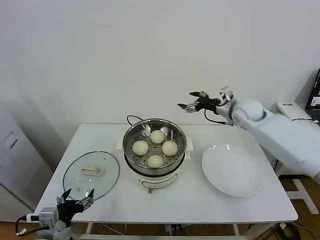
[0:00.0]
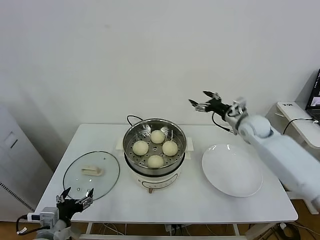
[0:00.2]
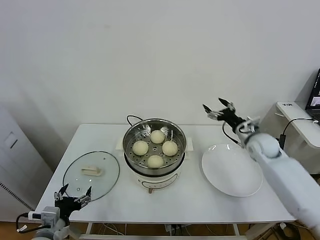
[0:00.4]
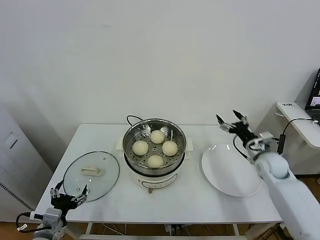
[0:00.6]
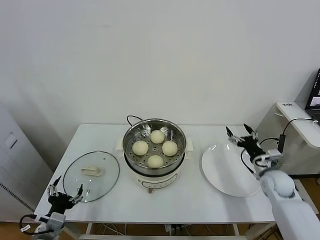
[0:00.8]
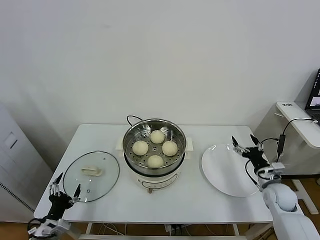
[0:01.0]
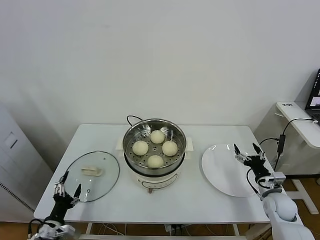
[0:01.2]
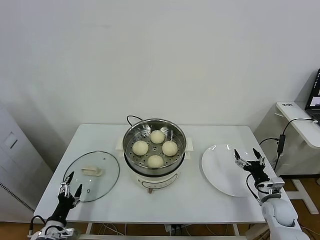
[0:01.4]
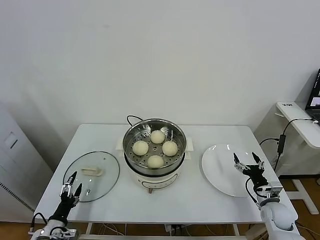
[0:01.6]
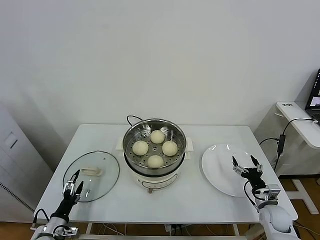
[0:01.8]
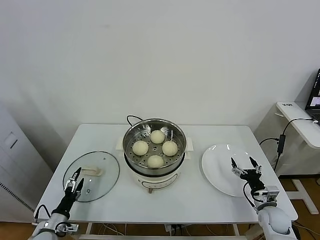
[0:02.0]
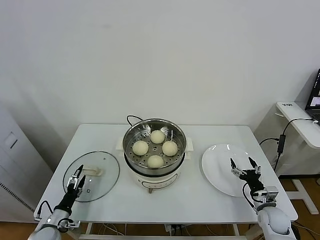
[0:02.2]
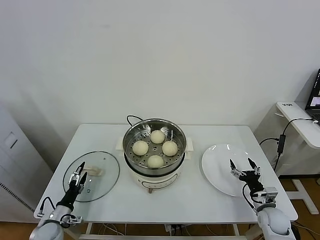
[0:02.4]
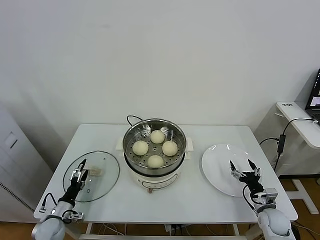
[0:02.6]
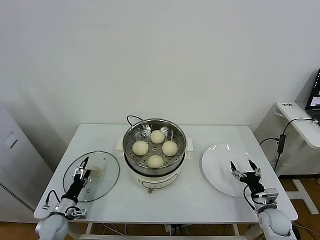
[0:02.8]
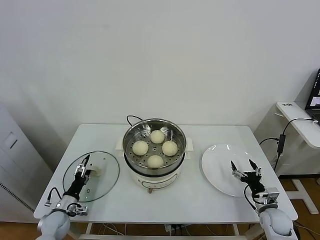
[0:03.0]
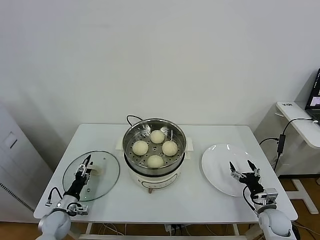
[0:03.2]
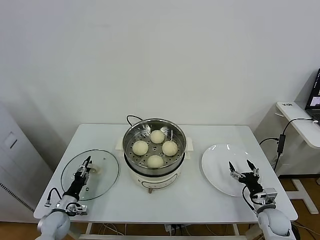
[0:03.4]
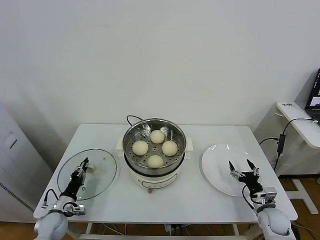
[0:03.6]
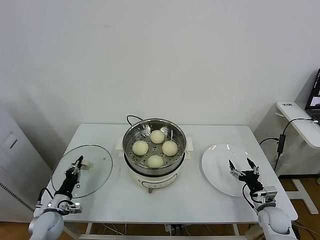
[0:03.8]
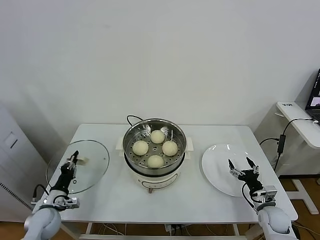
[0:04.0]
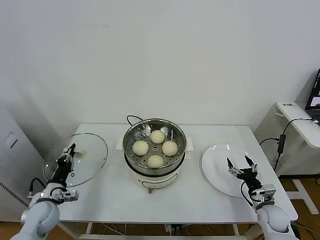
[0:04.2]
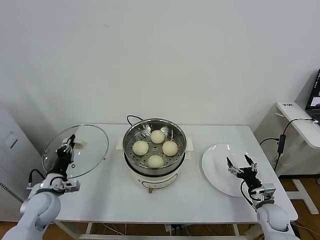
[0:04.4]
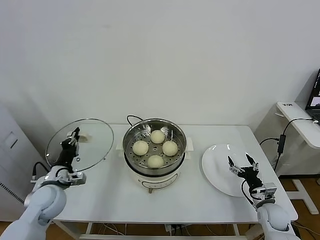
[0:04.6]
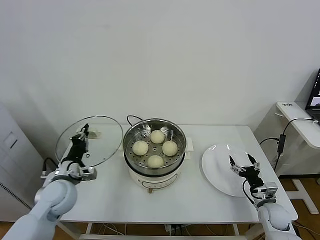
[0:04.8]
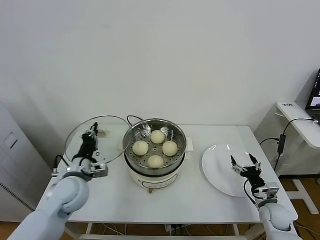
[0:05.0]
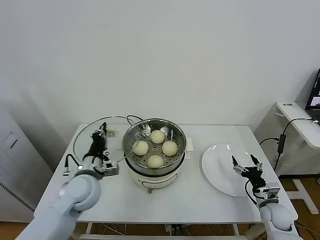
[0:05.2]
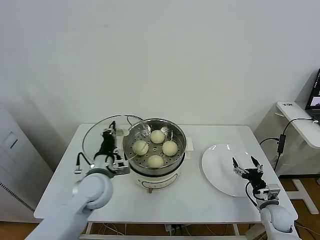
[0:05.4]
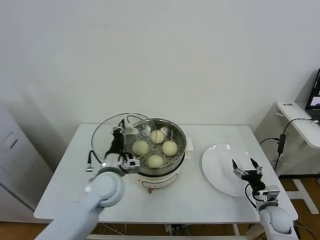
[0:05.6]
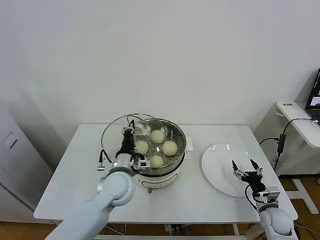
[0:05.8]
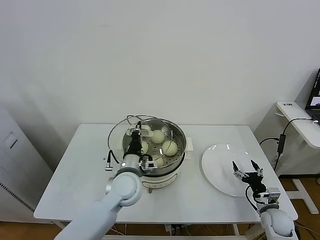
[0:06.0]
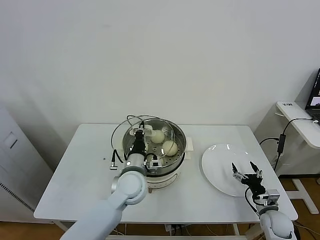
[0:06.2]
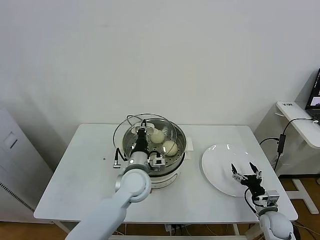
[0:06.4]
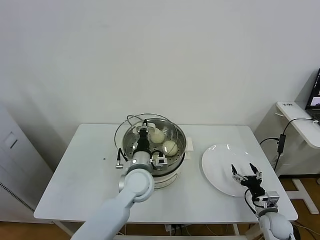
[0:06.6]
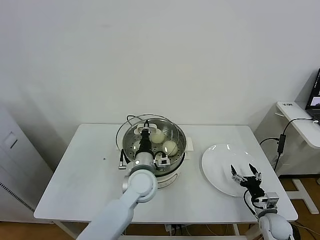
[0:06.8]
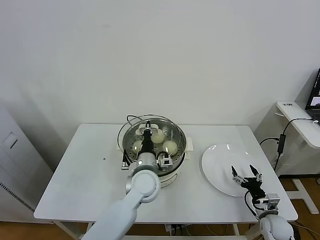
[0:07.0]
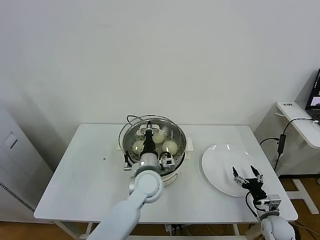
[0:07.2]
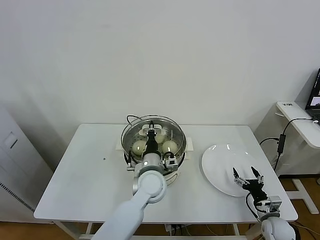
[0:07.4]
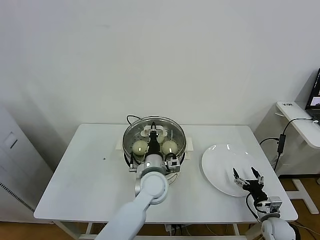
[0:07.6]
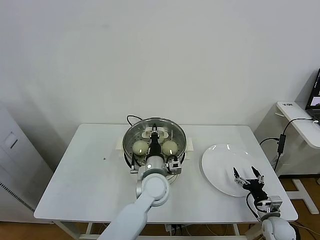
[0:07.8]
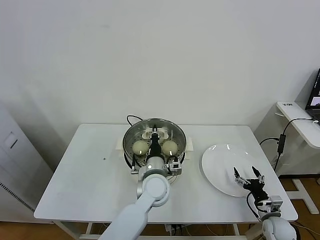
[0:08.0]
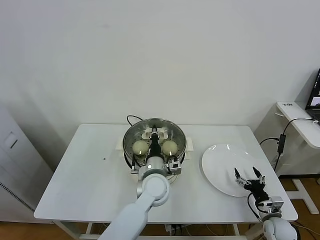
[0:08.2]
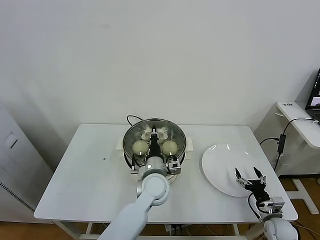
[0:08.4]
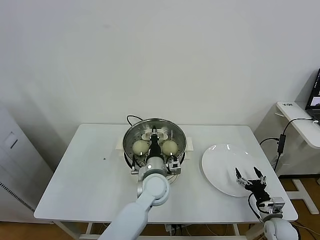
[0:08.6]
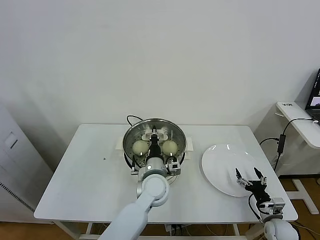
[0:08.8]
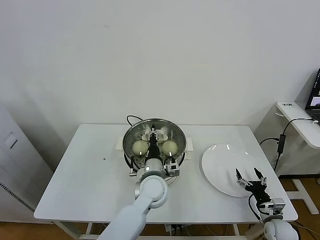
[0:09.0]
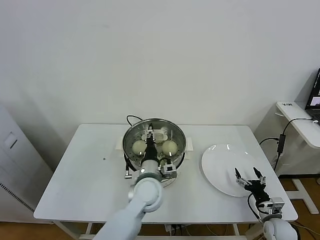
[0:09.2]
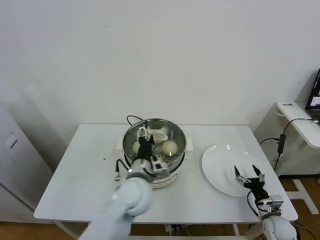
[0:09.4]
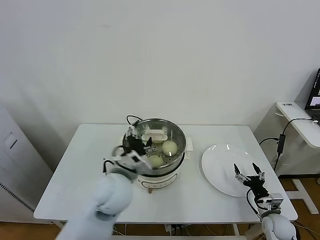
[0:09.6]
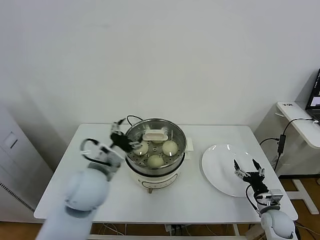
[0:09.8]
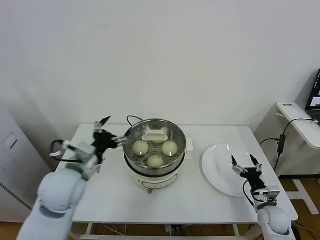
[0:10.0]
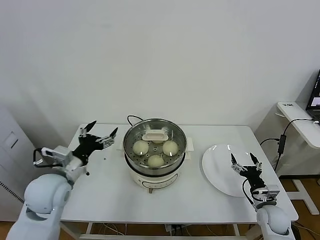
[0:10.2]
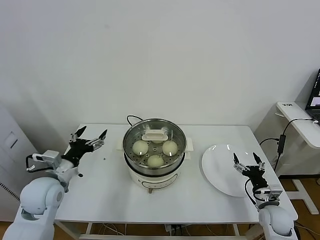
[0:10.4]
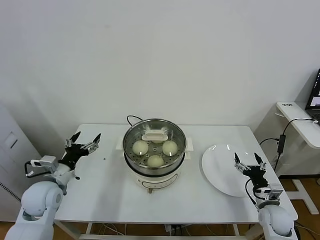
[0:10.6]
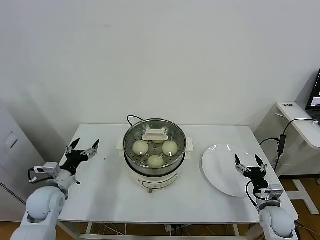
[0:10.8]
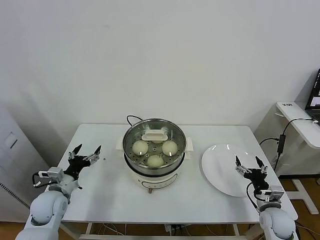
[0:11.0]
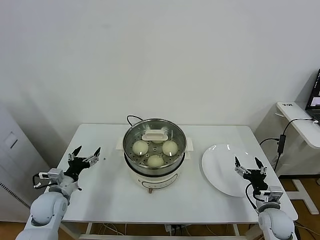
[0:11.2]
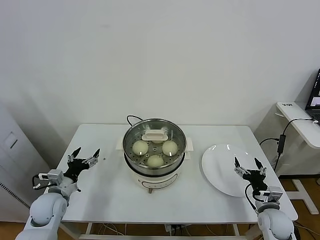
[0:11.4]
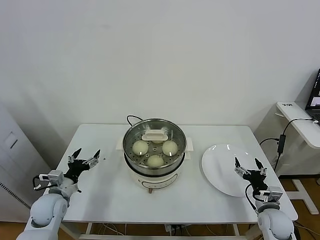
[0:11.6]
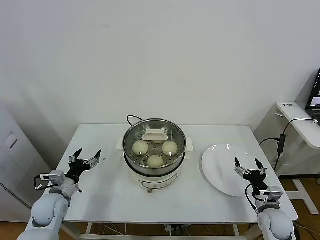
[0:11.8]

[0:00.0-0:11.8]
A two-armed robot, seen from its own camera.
Task of the whole recording: take steamed baozi put them in steamer.
Step, 0:00.0 to 0:03.8: Grasp the pot lid with left gripper.
Step, 0:04.0 to 0:09.4: Place the pot lid on the steamer with left gripper.
0:00.0 to 0:01.4: The left gripper moves downward and to the left, roughly 15 cm; the right gripper heads downward, backward and to the right, covering roughly 35 cm.
0:01.4 to 0:03.0: The left gripper travels forward and downward by about 10 cm.
0:03.0 to 0:04.4: The left gripper moves upward, about 15 cm, and closes up.
0:04.4 to 0:06.0: The left gripper moves to the right, approximately 25 cm.
0:06.0 to 0:07.4: The left gripper moves to the right, about 10 cm.
0:07.4 to 0:08.8: The grippers move only a little.
0:08.8 to 0:10.4: The right gripper travels upward by some 5 cm; the left gripper is displaced to the left by about 30 cm, and opens.
0:10.4 to 0:11.8: The left gripper shifts roughly 15 cm downward.

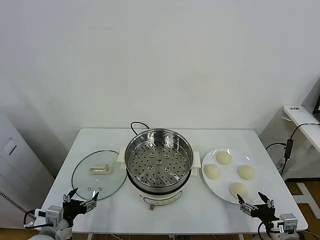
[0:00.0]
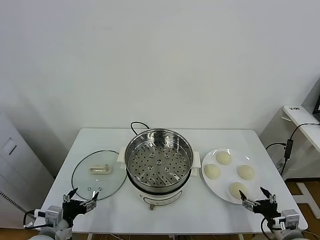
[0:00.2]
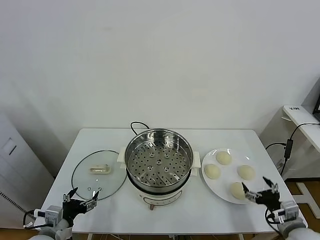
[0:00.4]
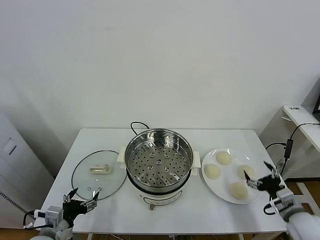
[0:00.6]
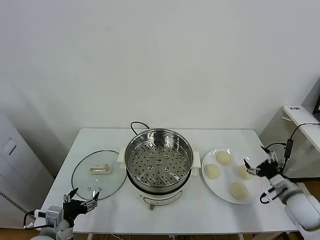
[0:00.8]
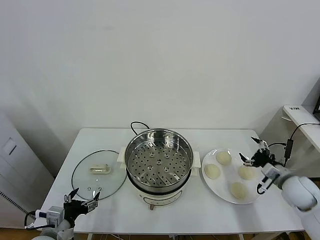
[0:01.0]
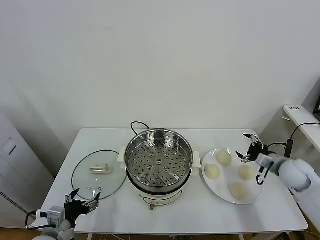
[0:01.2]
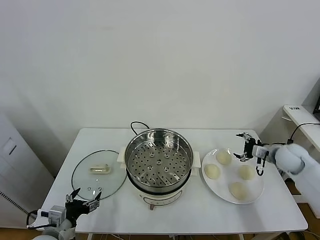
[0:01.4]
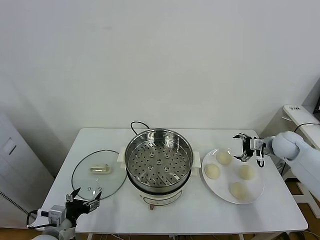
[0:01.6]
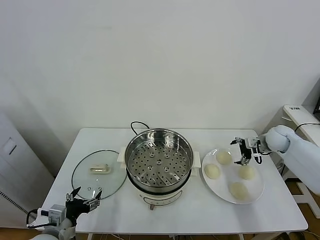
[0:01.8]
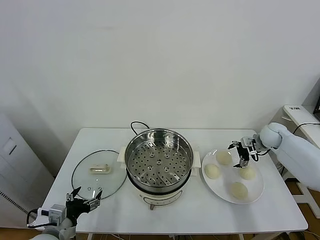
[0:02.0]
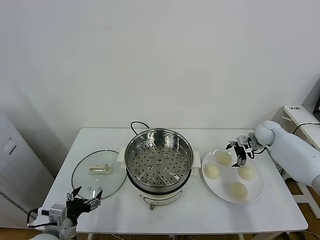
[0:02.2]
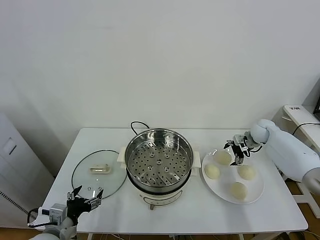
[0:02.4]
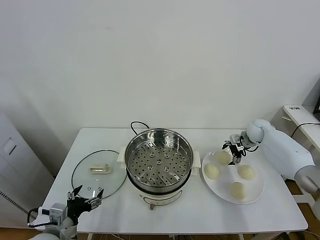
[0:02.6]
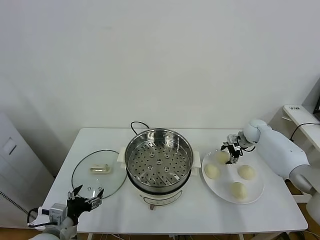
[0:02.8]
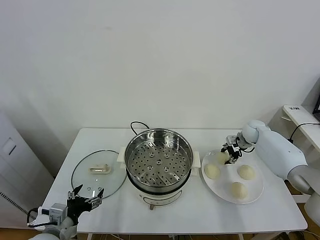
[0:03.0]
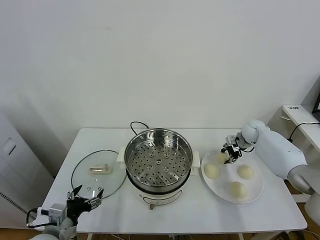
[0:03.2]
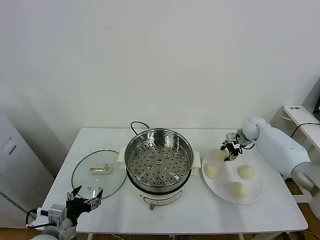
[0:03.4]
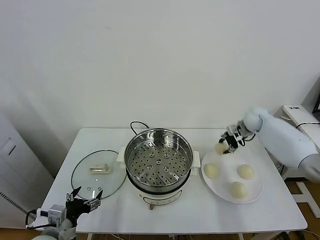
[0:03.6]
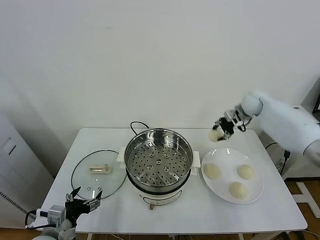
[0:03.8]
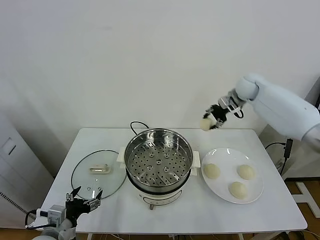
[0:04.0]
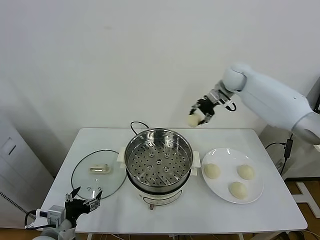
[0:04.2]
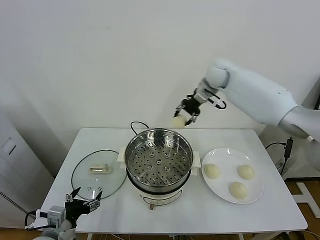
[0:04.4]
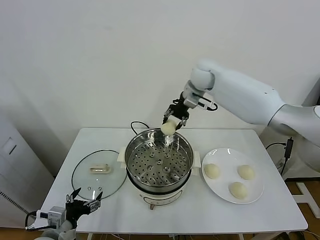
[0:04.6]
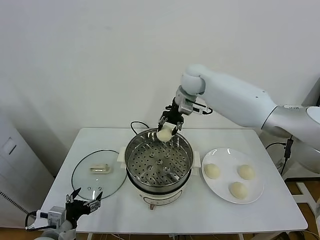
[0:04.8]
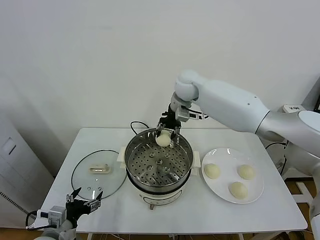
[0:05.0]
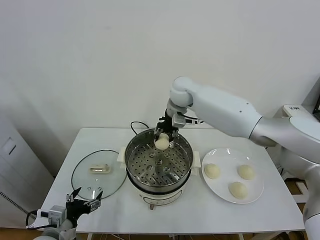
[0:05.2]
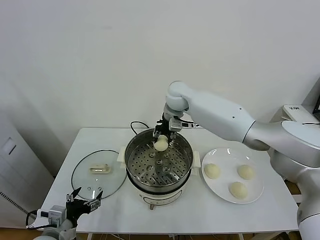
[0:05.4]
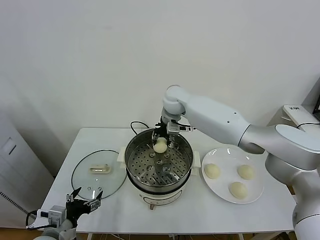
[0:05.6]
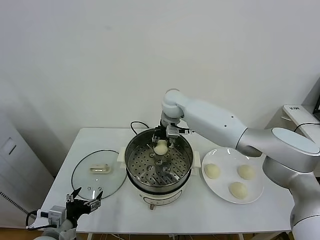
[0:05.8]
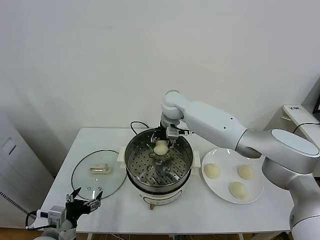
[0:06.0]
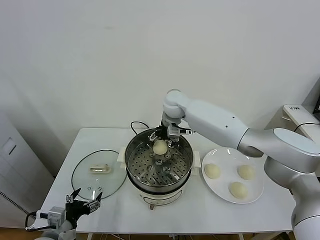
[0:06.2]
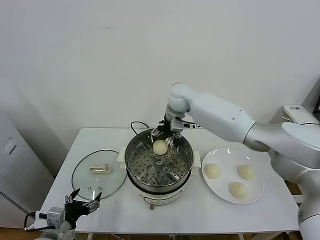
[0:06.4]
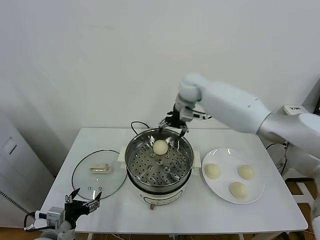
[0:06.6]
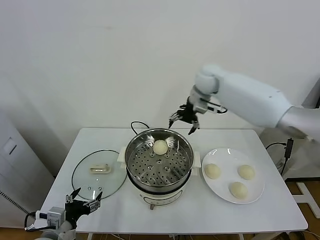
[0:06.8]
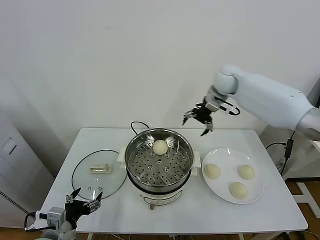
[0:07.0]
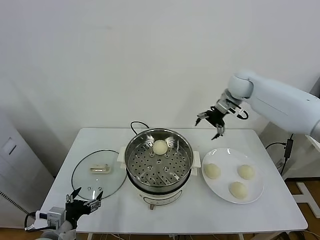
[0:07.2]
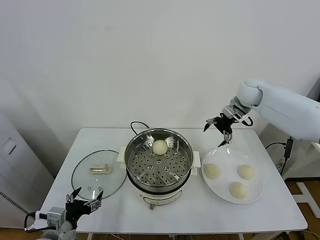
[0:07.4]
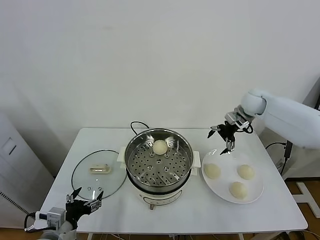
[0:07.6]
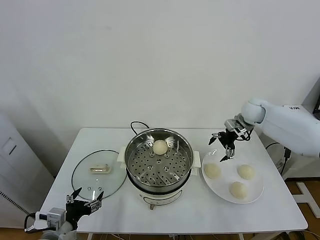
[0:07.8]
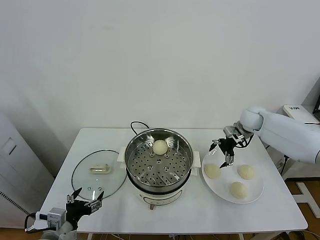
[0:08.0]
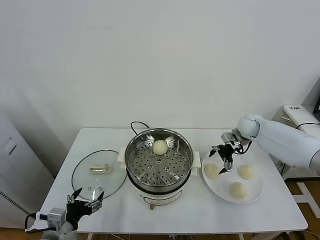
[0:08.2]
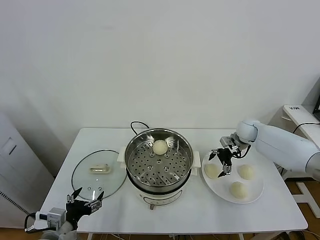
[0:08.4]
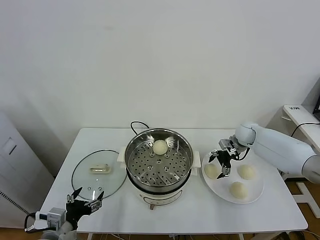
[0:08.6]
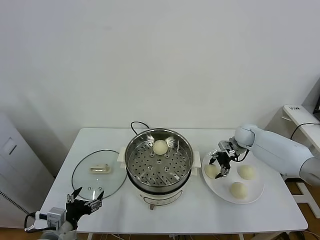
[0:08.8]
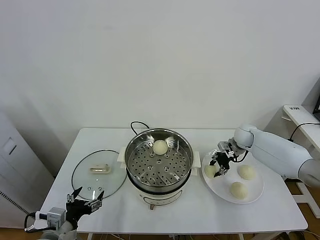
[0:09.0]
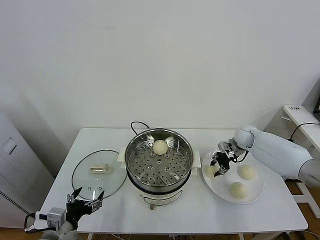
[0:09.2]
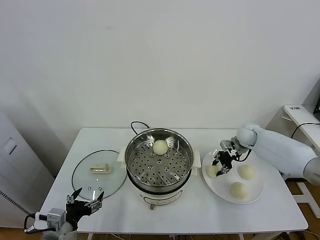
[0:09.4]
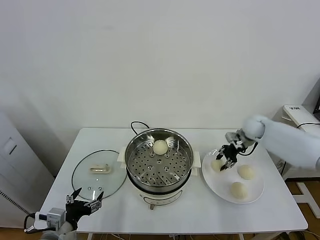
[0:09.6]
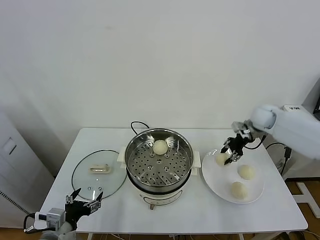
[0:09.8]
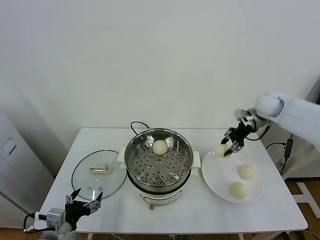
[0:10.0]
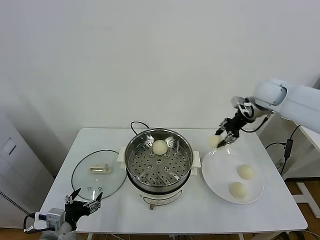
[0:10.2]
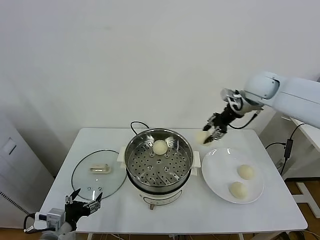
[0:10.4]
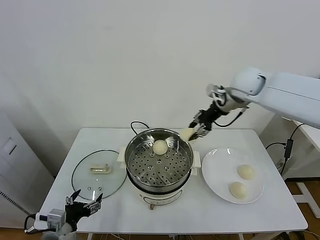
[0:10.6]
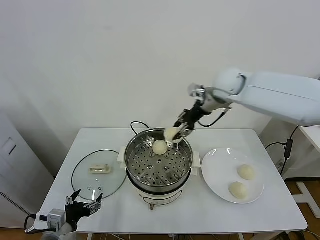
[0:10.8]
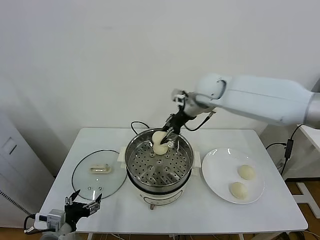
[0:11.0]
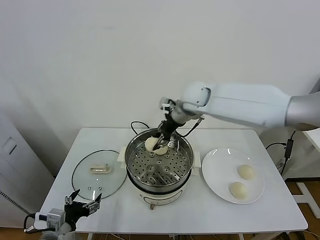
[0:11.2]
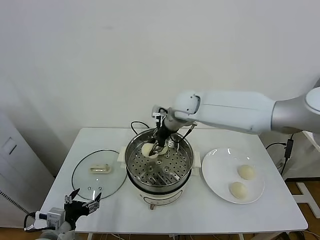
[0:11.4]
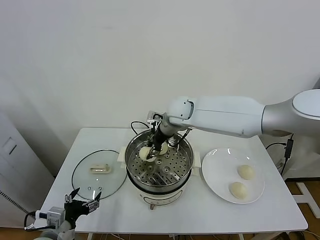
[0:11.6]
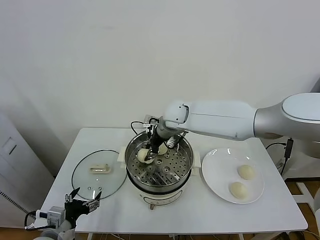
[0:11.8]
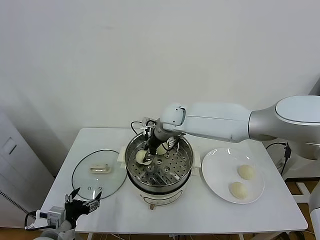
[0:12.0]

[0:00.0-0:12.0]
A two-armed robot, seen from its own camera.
Task of the whole recording: take steamed baozi put them in steamer.
Step, 0:00.0 to 0:02.8: Grasp the baozi in the plate with right gripper.
Step, 0:03.0 to 0:06.2: Place the baozi on the steamer with right gripper.
Step, 0:06.4 to 0:08.8: Grasp the baozi in the plate with right gripper.
0:01.6 to 0:03.0: The right gripper moves forward and to the left, roughly 10 cm, and closes.
0:03.0 to 0:04.4: The right gripper goes roughly 35 cm upward and to the left.
0:04.4 to 0:06.0: The right gripper goes approximately 15 cm to the left and downward, and opens.
0:06.0 to 0:07.6: The right gripper travels to the right by about 30 cm.
0:07.6 to 0:09.0: The right gripper goes roughly 15 cm downward, and closes its fingers.
0:09.0 to 0:10.4: The right gripper travels upward by some 25 cm.
0:10.4 to 0:12.0: The right gripper heads to the left and downward, covering about 30 cm.
